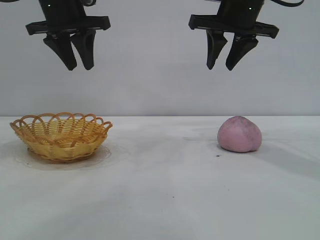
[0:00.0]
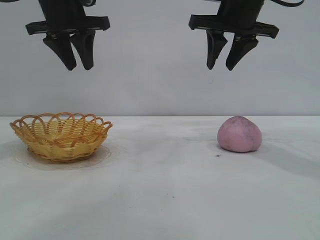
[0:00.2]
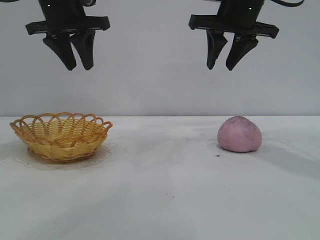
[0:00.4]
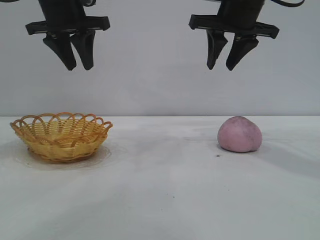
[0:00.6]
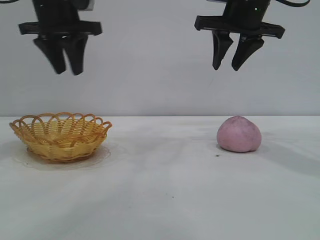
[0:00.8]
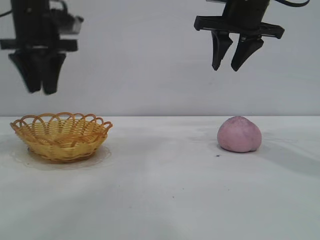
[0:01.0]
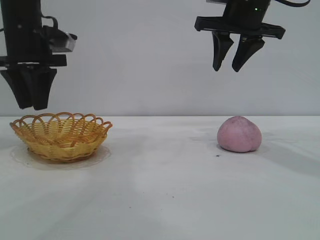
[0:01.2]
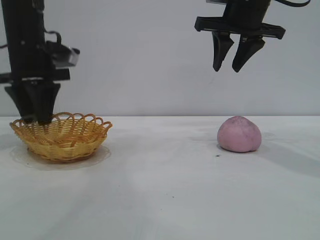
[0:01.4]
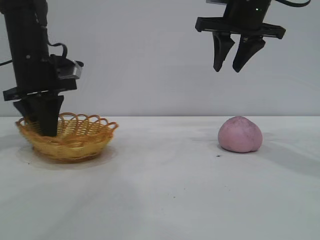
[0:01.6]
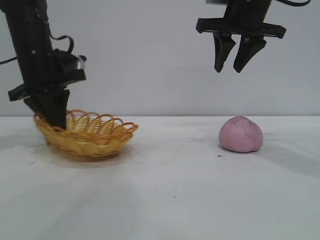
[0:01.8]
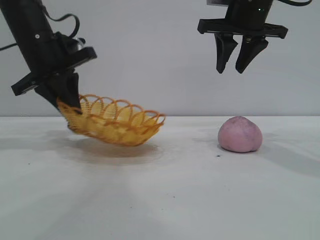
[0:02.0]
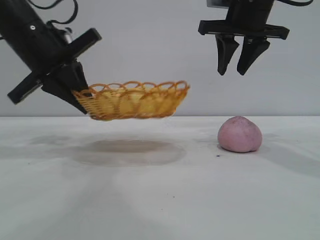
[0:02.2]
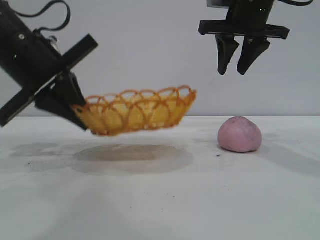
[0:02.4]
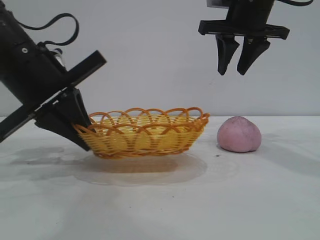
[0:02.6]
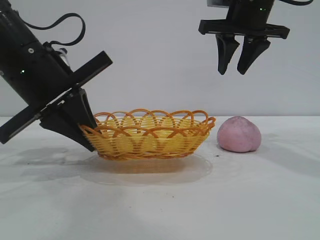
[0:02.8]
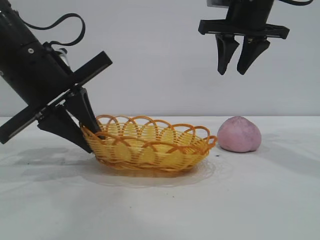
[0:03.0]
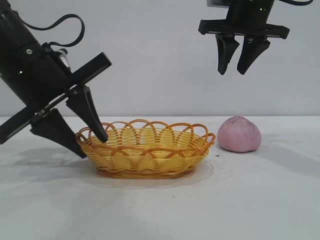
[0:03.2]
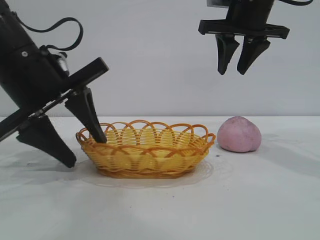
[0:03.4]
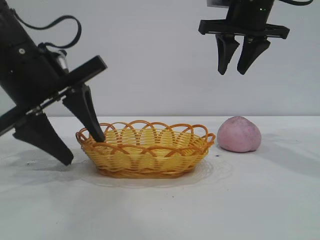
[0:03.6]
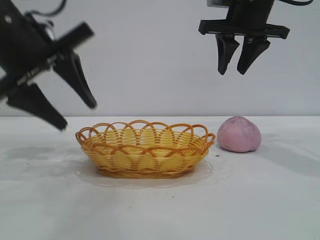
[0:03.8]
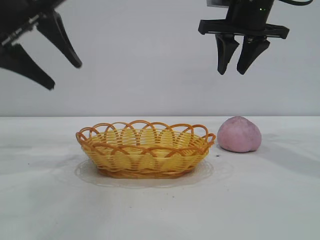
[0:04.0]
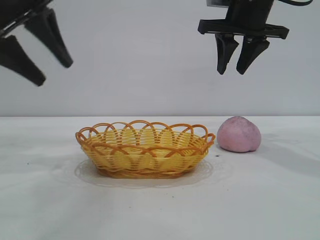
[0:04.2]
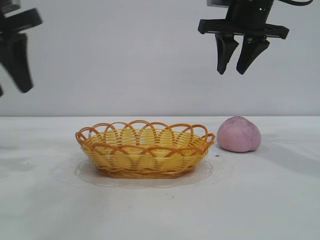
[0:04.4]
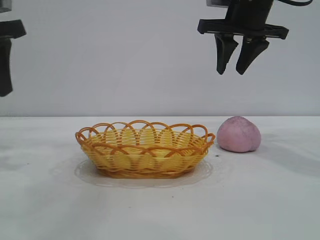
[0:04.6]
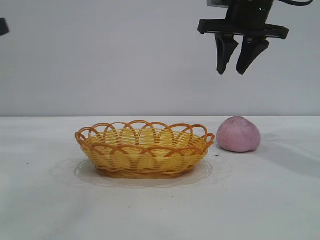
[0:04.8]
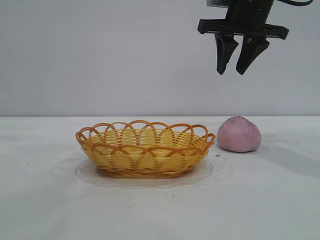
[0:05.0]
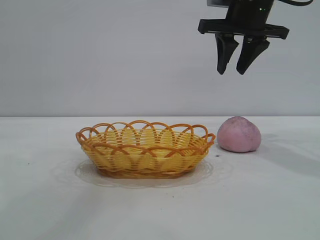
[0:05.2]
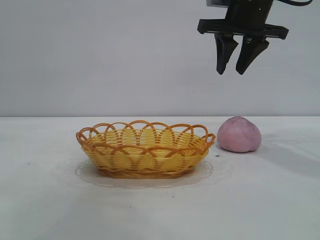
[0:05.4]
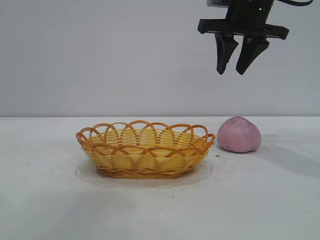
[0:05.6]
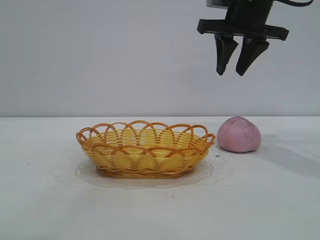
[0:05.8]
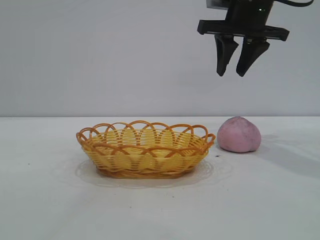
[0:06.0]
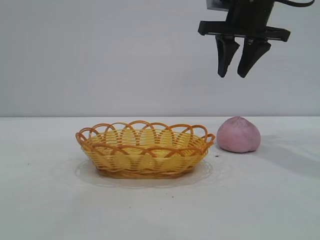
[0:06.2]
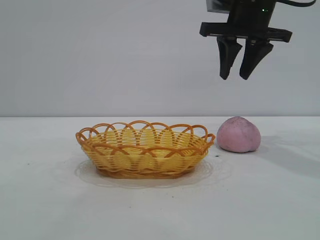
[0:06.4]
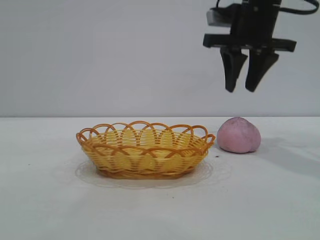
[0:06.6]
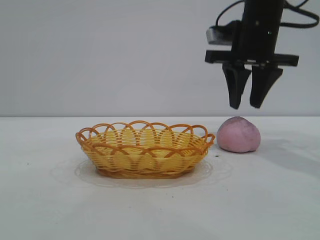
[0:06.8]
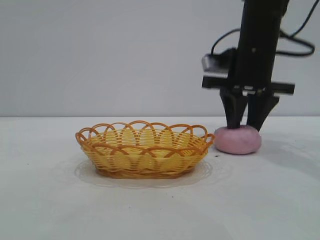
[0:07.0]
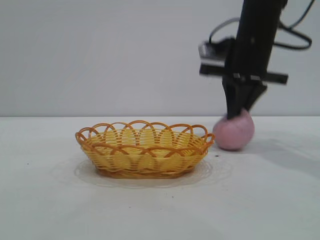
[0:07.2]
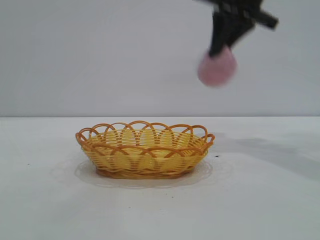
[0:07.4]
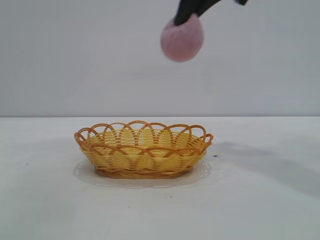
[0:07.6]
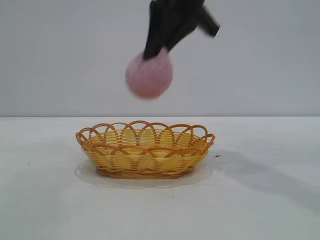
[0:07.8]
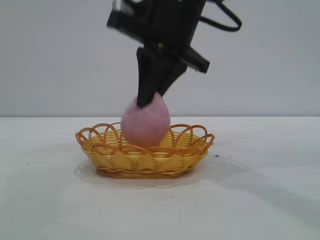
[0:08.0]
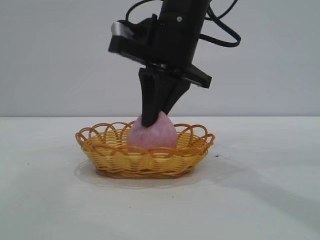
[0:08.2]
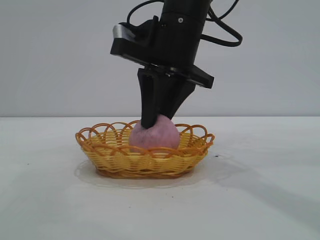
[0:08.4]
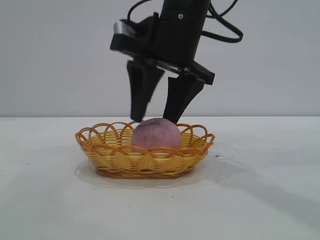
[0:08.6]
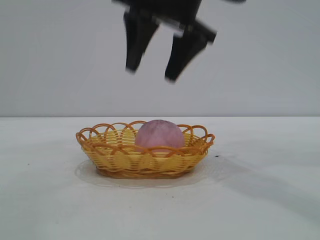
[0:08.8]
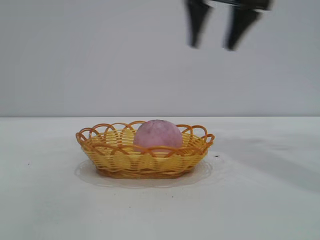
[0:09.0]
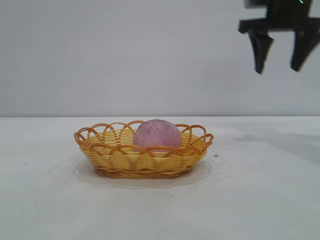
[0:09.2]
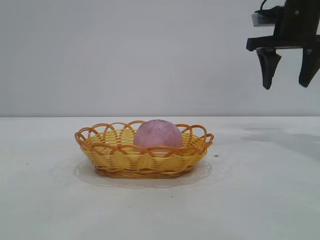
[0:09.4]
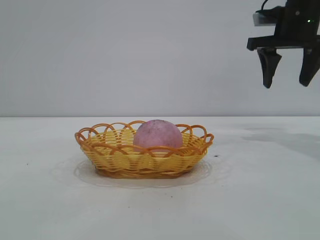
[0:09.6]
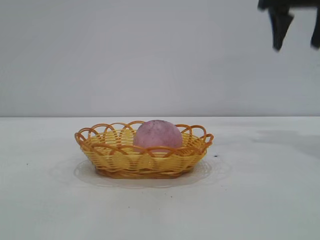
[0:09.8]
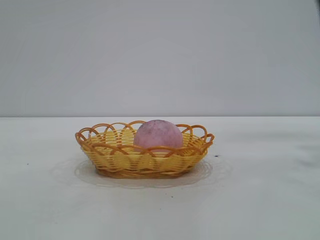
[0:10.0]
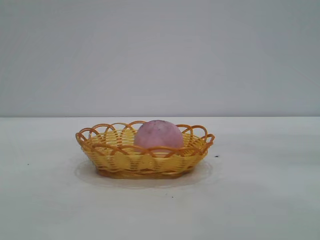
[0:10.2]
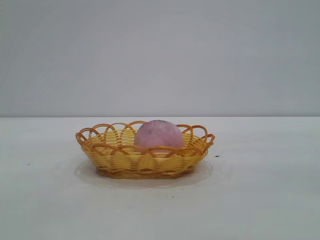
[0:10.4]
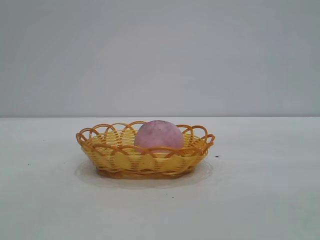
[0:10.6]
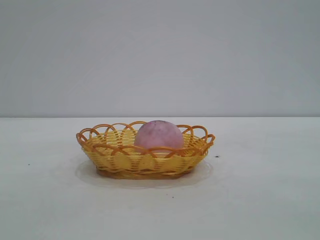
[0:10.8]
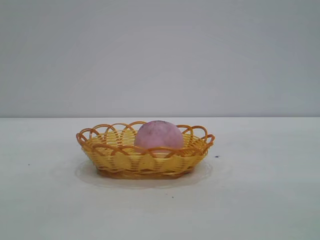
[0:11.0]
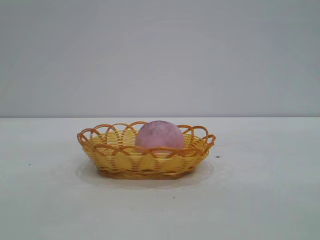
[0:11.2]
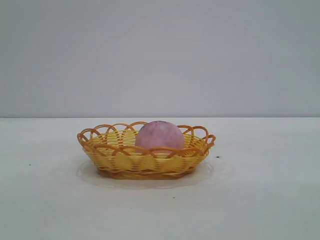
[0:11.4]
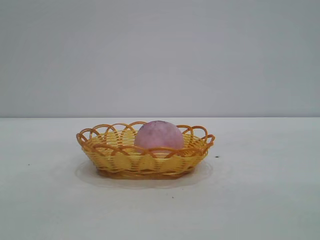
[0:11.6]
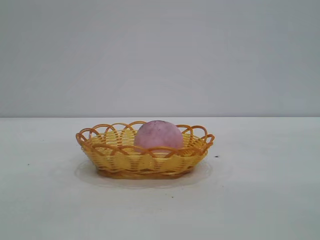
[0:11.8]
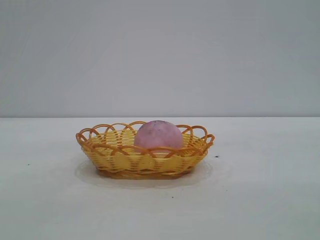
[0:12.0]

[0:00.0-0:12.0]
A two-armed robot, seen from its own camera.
Task of the whole recording: pick up the peach and put it into the basket.
Step, 0:00.0 to 0:03.8: Move the basket to the center of view.
Step, 0:04.0 to 0:07.2: Pick up the peach.
Step, 0:07.4 to 0:08.8: place the peach into the basket.
